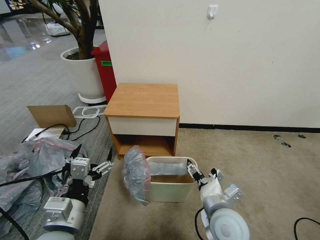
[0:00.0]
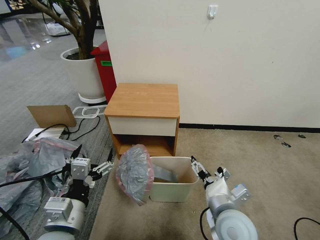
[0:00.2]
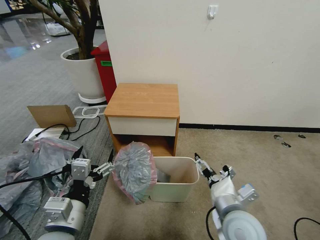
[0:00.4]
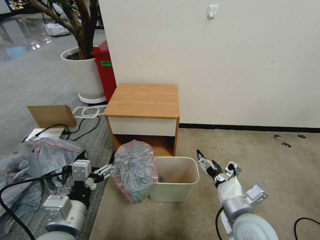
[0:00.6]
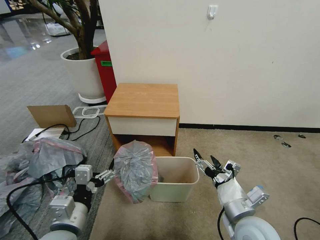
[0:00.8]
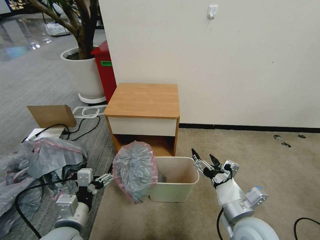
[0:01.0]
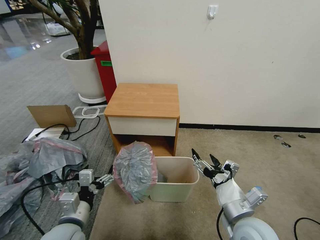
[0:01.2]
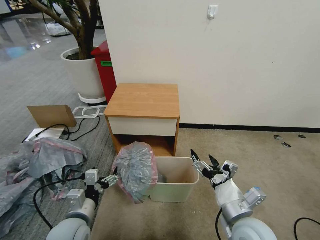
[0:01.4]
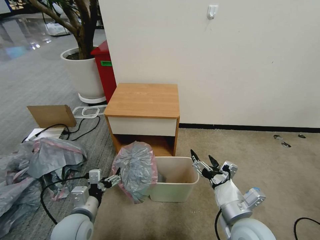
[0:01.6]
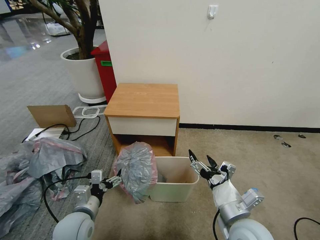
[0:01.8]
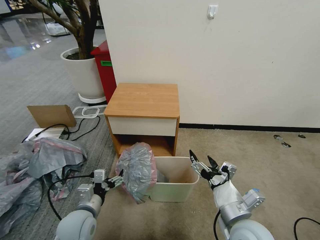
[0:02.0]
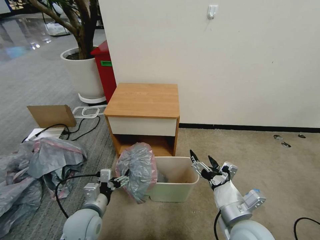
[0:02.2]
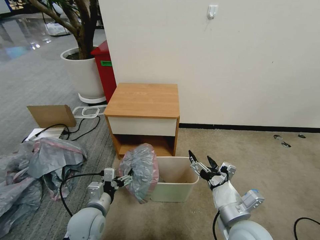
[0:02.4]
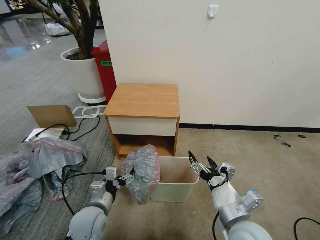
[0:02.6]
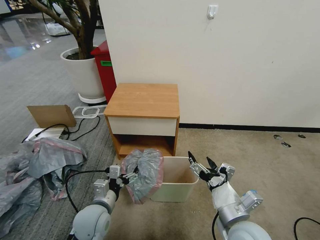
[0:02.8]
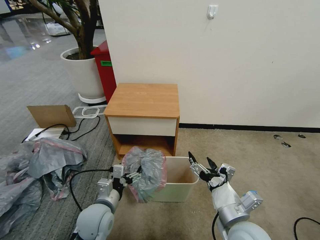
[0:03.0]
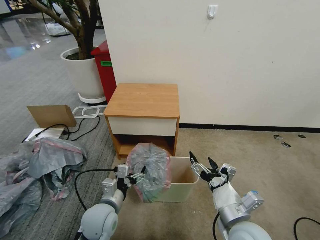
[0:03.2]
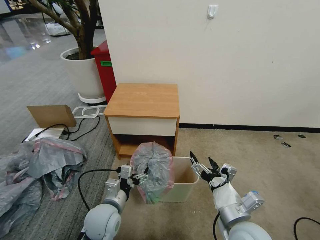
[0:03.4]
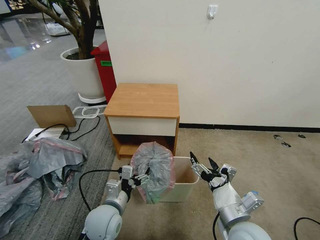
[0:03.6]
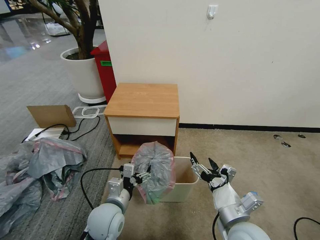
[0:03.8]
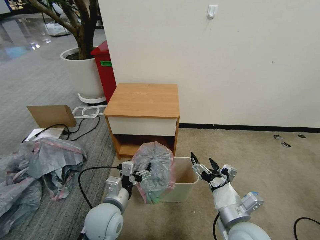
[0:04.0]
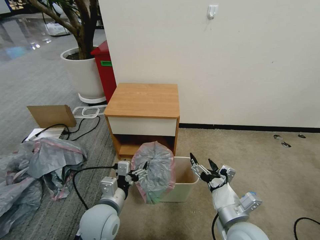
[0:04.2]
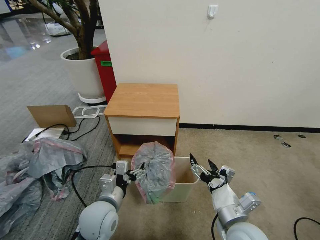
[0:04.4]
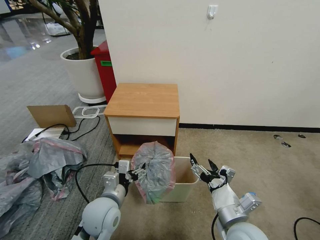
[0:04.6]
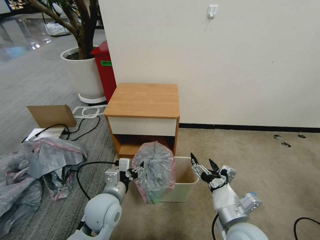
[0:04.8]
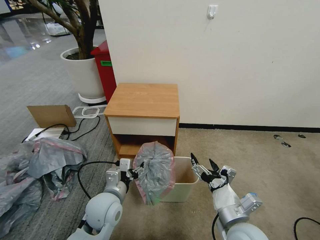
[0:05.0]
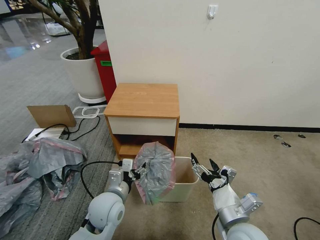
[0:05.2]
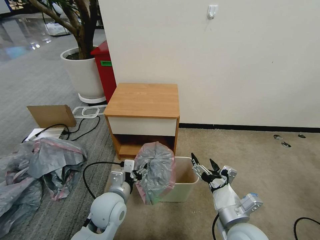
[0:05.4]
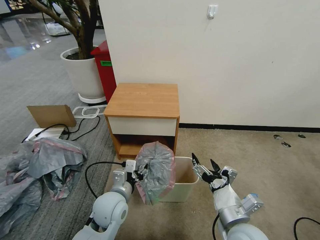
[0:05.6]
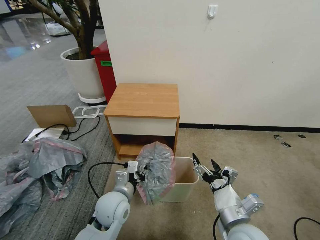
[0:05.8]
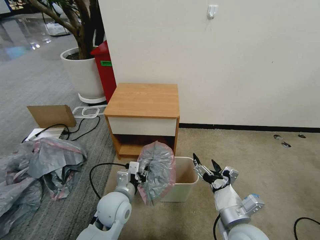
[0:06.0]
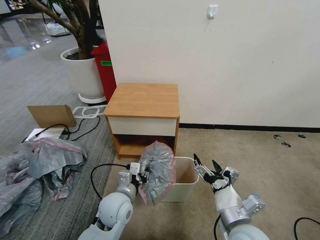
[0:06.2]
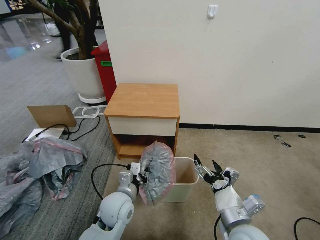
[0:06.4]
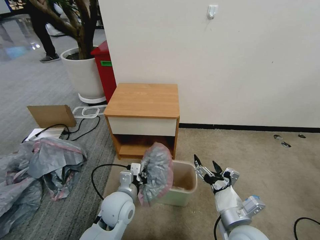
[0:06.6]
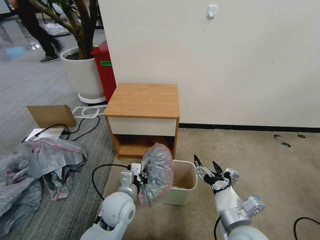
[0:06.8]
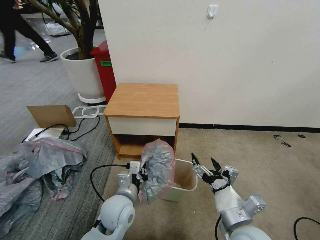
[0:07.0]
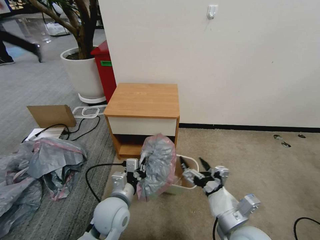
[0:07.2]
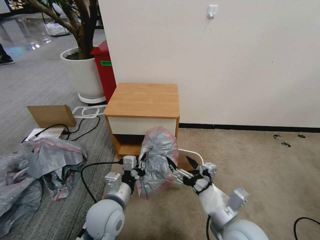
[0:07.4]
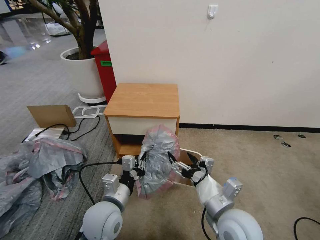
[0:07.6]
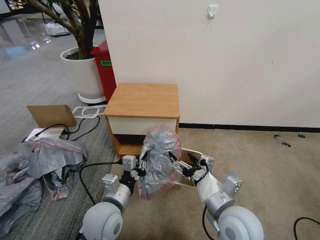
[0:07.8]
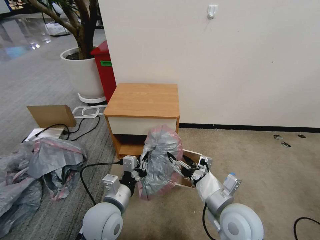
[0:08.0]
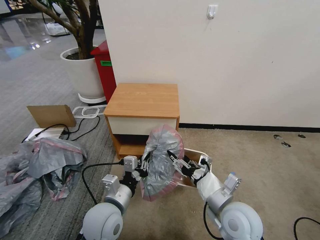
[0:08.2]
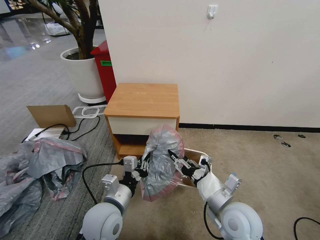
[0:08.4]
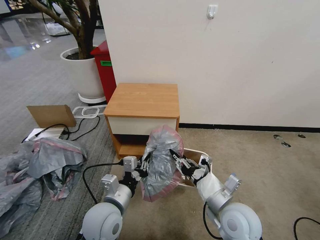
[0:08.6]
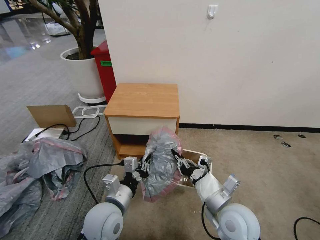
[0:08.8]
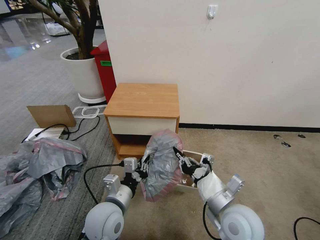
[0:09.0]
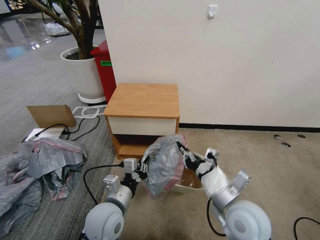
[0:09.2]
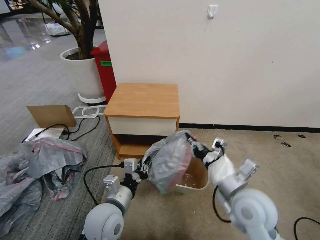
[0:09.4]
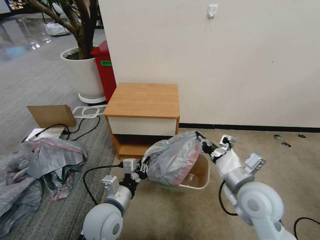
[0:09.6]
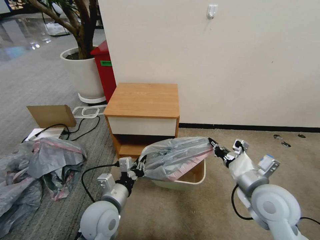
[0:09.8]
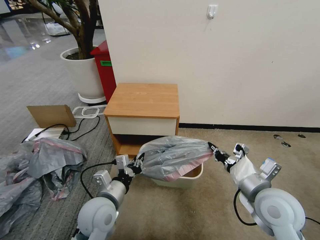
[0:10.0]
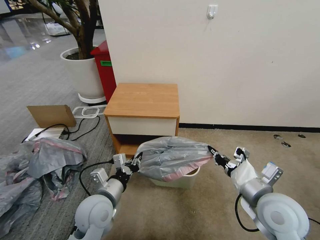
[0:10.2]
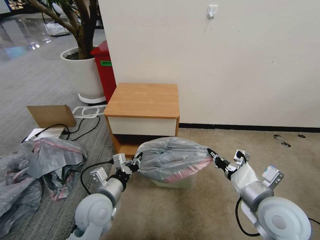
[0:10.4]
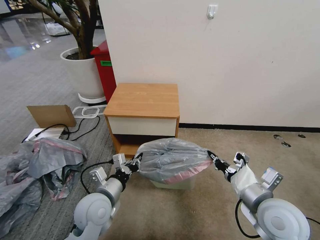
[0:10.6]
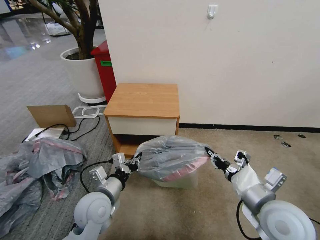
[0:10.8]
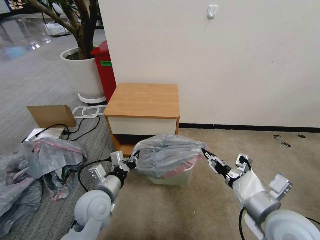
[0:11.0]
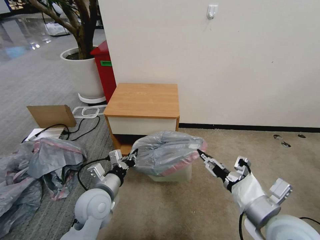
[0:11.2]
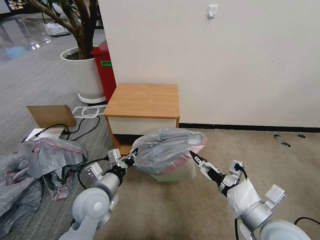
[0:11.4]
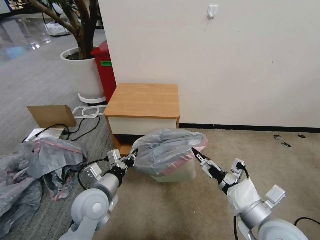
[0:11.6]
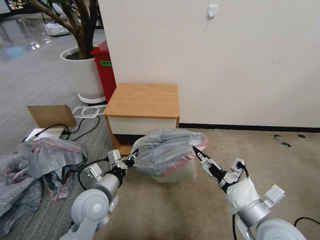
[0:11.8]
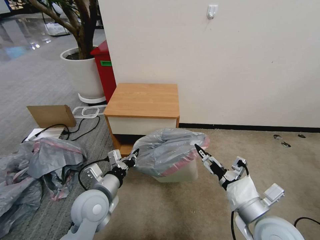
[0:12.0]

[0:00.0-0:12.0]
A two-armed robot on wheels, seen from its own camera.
Task of the whole recording: Pick up the garbage bag from the table and place it over the trash can.
0:00.0 to 0:01.6: The left gripper travels downward and forward by approximately 15 cm. The right gripper moves about 5 cm.
0:01.6 to 0:03.0: The left gripper is displaced to the right by about 5 cm.
0:03.0 to 0:04.4: The grippers move only a little.
0:04.4 to 0:06.0: The left gripper moves approximately 5 cm, and closes its fingers.
0:06.0 to 0:07.6: The left gripper changes place by about 5 cm. Meanwhile the right gripper shifts by some 5 cm.
0:07.6 to 0:09.0: The right gripper closes.
0:09.0 to 0:10.4: The right gripper is displaced to the right by roughly 10 cm.
0:10.4 to 0:12.0: The right gripper opens.

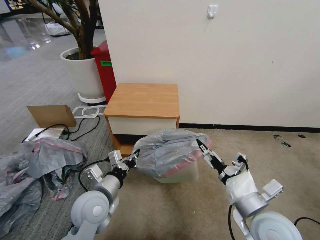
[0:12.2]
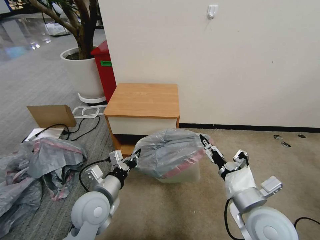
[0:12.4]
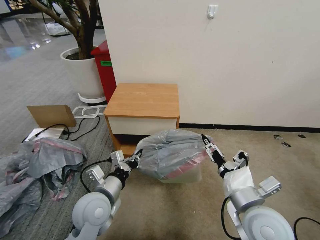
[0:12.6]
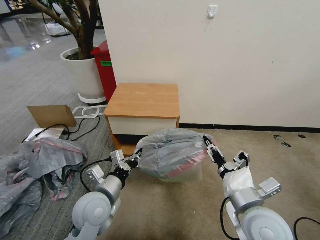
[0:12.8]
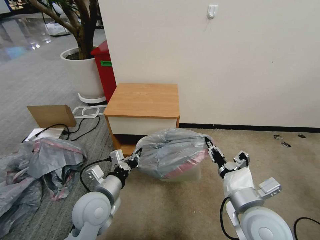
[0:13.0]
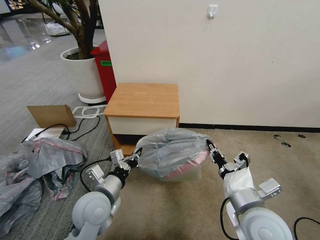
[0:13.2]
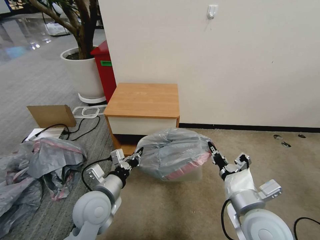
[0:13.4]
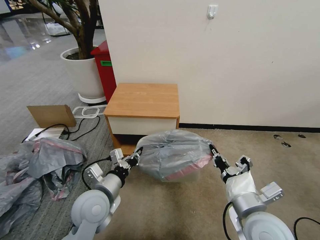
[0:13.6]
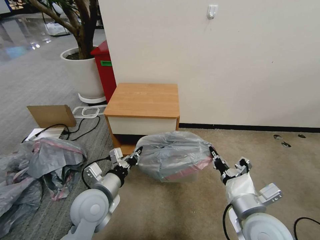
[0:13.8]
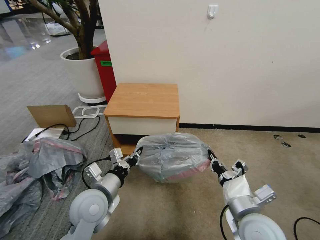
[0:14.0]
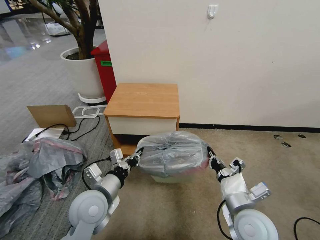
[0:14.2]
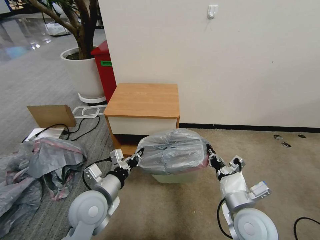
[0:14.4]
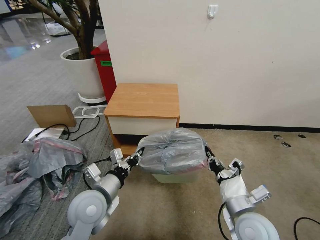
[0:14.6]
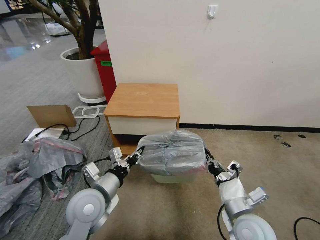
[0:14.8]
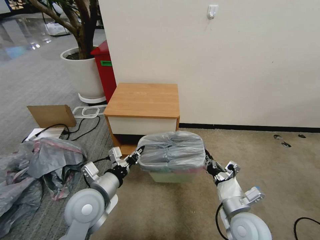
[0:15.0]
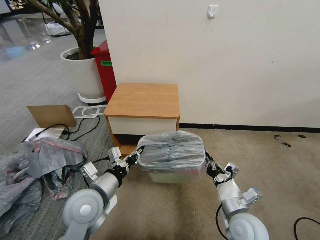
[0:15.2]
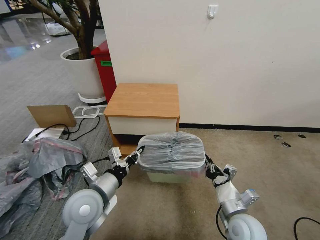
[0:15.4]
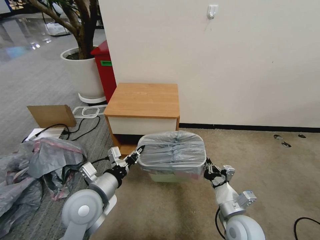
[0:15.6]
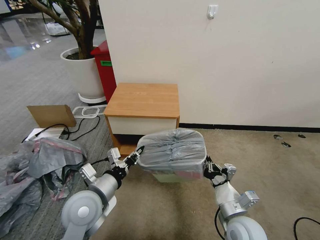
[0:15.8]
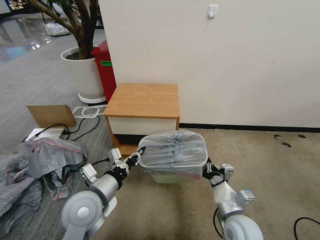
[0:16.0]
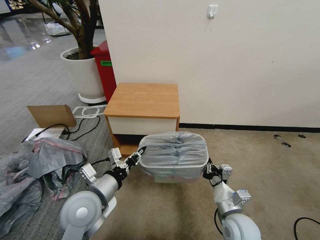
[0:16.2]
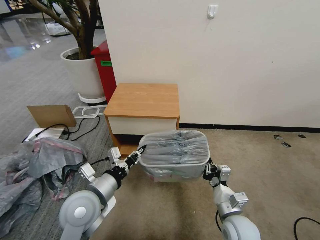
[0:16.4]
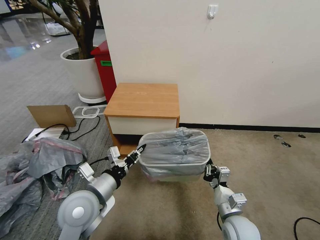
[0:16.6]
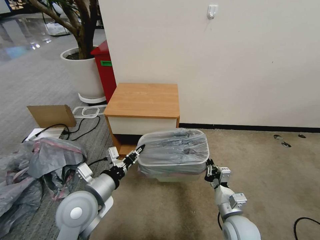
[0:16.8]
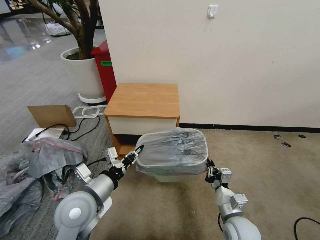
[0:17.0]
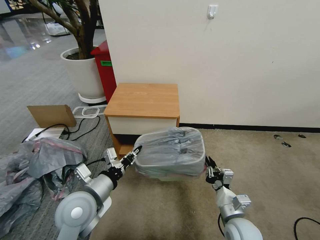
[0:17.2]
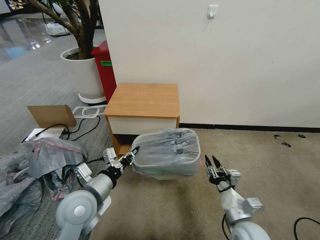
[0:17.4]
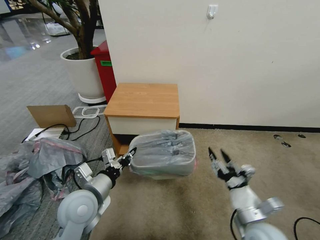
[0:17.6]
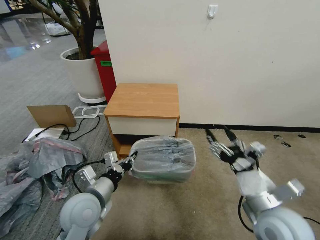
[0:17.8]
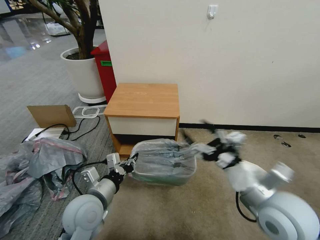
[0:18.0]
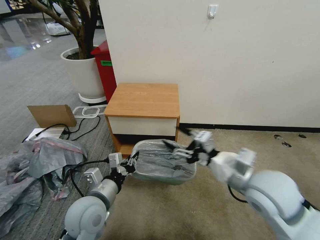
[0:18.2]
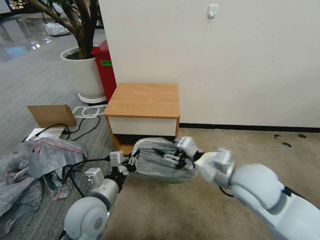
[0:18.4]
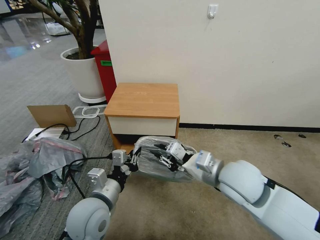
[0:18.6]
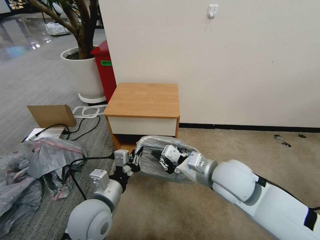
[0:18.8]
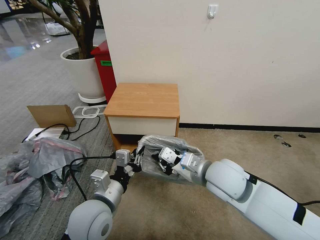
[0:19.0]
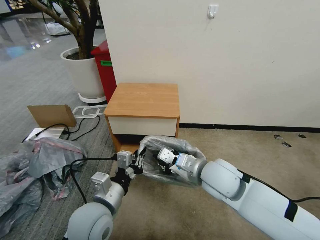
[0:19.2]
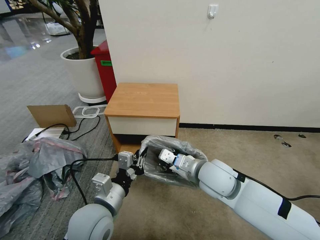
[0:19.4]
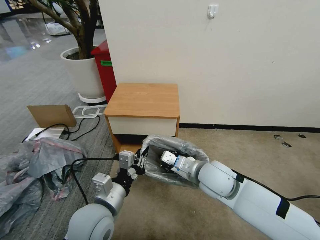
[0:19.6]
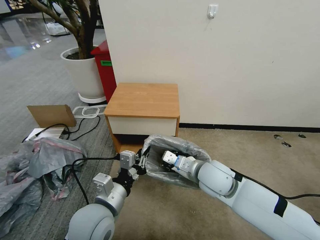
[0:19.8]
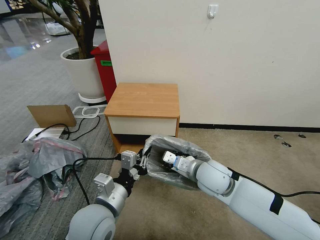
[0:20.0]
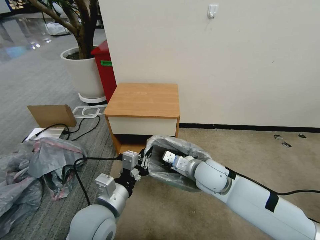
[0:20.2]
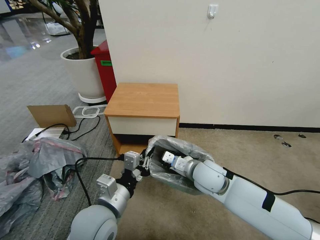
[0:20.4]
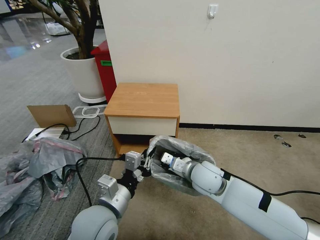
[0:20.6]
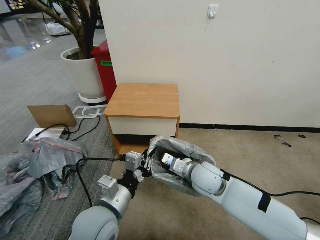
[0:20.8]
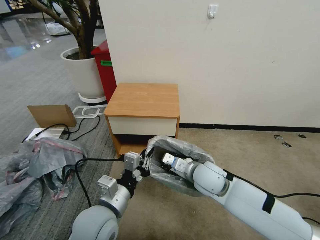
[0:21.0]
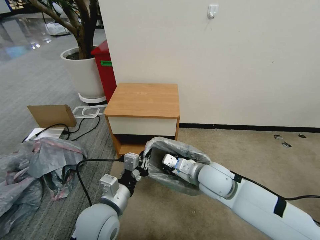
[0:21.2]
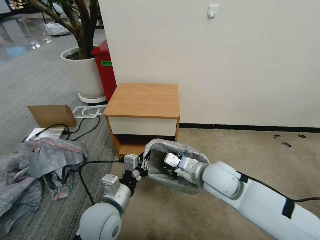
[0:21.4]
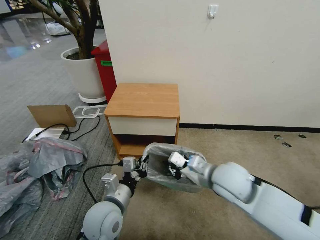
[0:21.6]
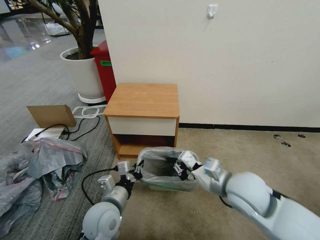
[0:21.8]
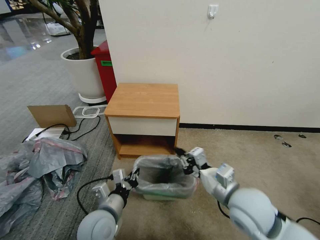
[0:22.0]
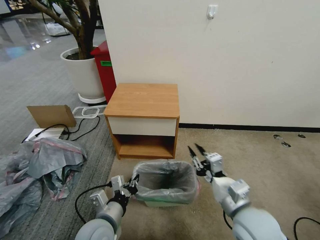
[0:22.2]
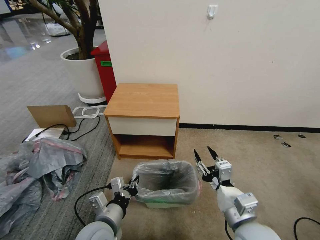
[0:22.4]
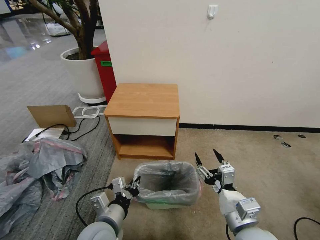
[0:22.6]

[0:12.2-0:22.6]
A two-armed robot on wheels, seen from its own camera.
Task of the whole recording: Pick up the garbage bag from the table and place it over the trash can.
0:12.2 to 0:13.6: The right gripper closes.
0:13.6 to 0:15.2: The right gripper travels downward by roughly 10 cm.
0:16.6 to 0:18.2: The right gripper is displaced upward by some 25 cm, and opens its fingers.
0:18.2 to 0:19.6: The right gripper travels to the left, downward and forward by some 15 cm, and closes up.
0:19.6 to 0:21.2: The grippers make only small movements.
0:21.2 to 0:22.6: The right gripper goes some 15 cm backward, and opens up. Meanwhile the left gripper shifts roughly 5 cm downward.
